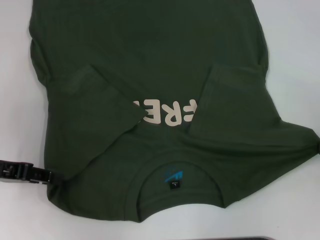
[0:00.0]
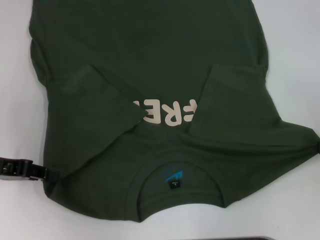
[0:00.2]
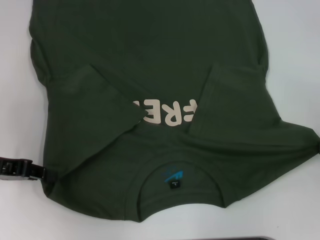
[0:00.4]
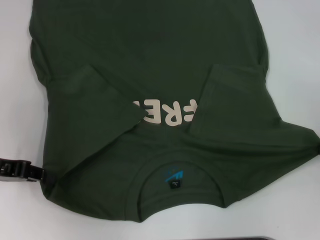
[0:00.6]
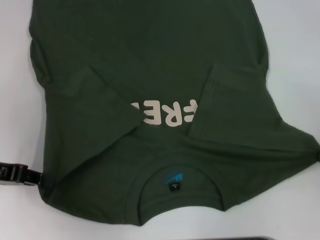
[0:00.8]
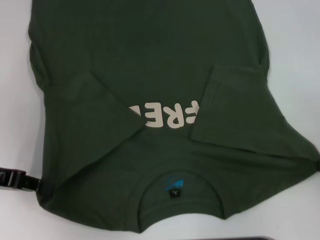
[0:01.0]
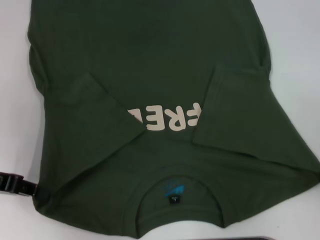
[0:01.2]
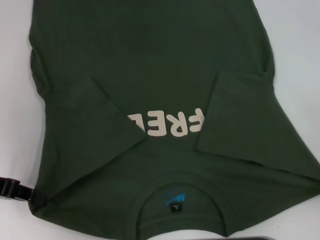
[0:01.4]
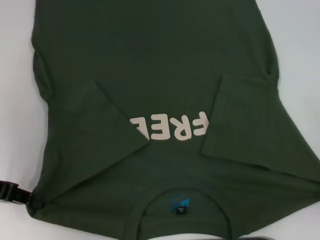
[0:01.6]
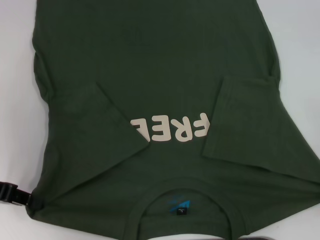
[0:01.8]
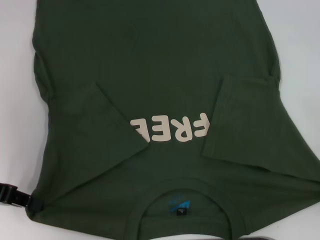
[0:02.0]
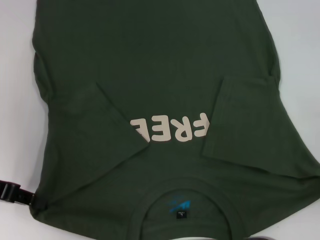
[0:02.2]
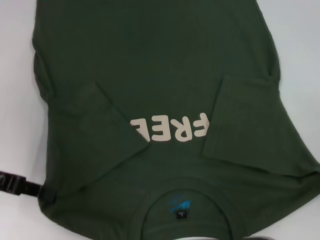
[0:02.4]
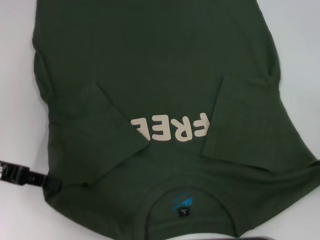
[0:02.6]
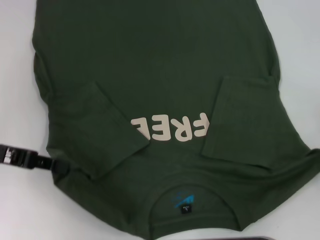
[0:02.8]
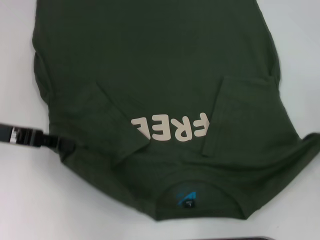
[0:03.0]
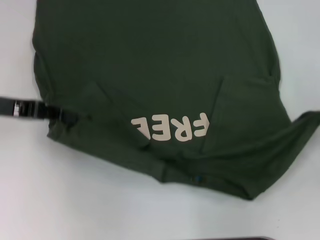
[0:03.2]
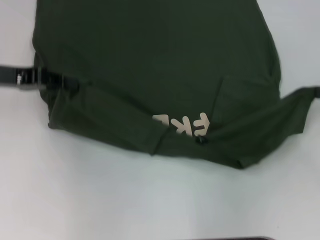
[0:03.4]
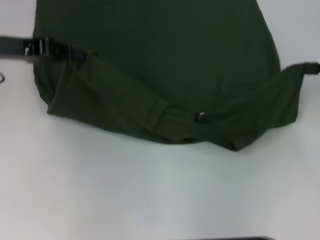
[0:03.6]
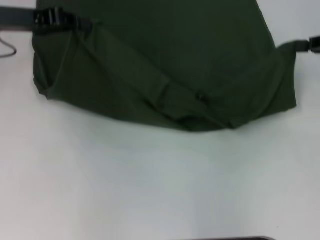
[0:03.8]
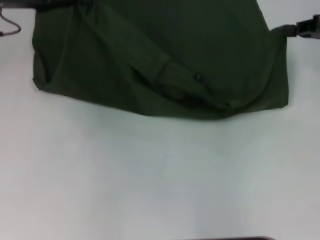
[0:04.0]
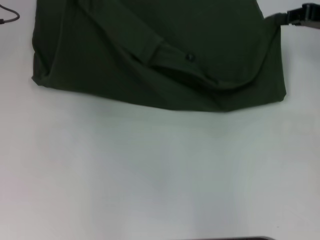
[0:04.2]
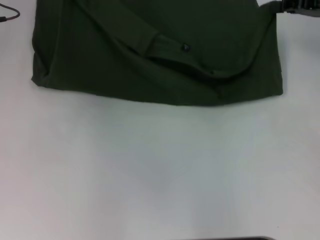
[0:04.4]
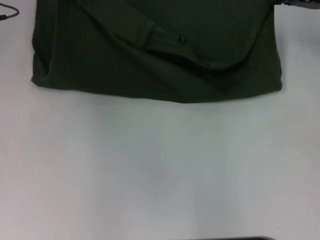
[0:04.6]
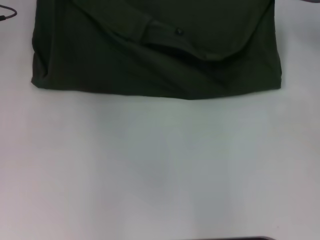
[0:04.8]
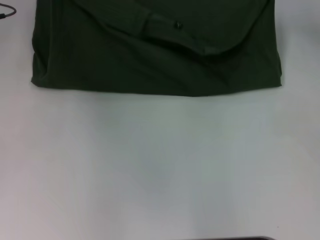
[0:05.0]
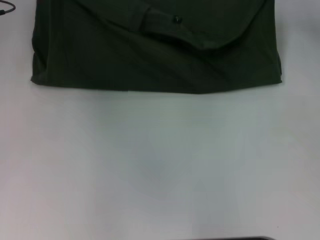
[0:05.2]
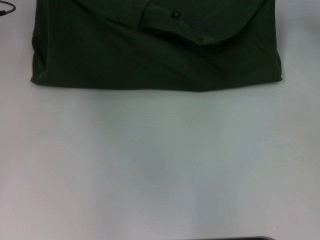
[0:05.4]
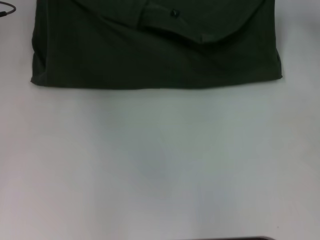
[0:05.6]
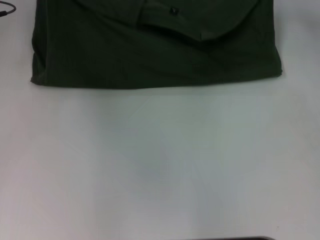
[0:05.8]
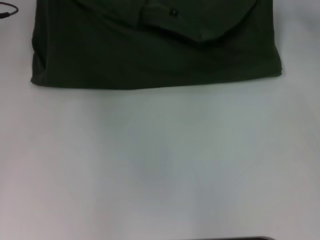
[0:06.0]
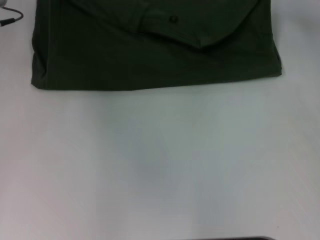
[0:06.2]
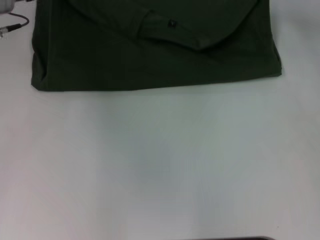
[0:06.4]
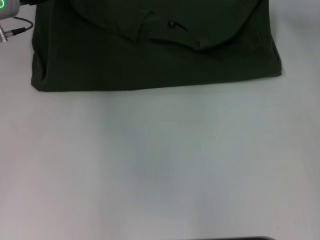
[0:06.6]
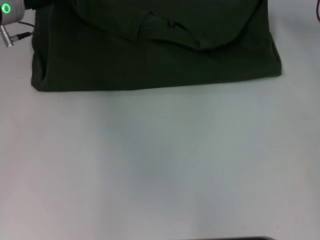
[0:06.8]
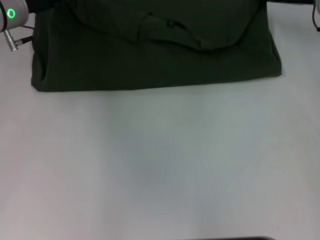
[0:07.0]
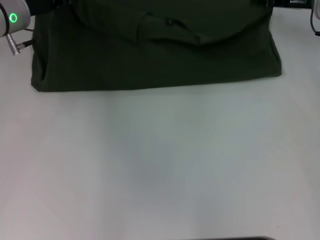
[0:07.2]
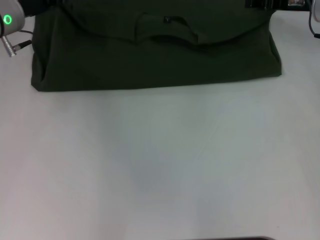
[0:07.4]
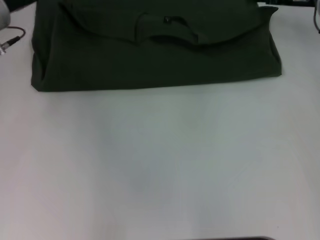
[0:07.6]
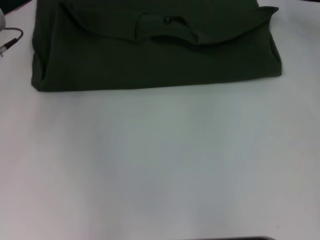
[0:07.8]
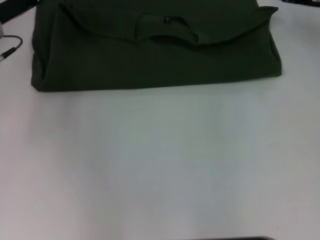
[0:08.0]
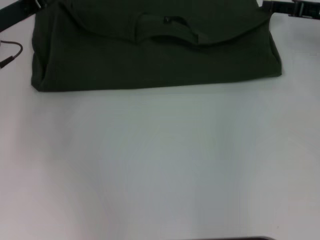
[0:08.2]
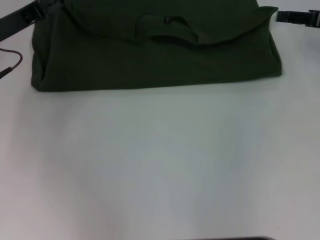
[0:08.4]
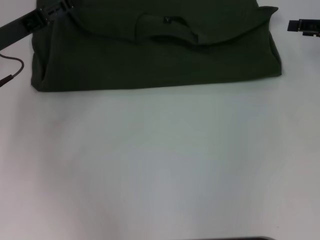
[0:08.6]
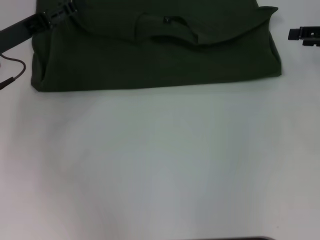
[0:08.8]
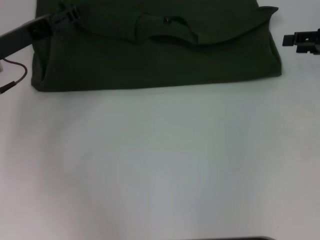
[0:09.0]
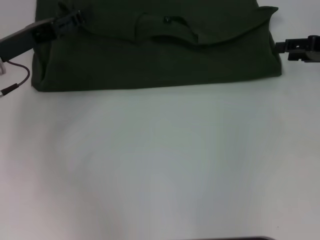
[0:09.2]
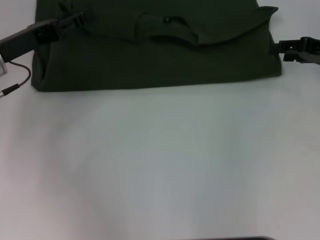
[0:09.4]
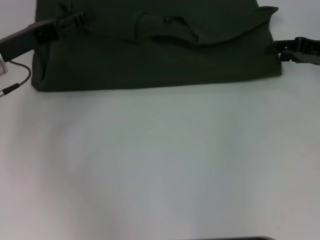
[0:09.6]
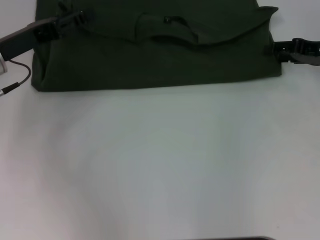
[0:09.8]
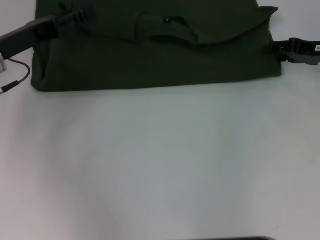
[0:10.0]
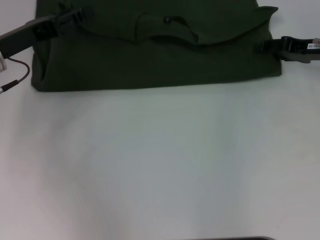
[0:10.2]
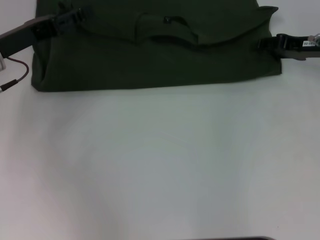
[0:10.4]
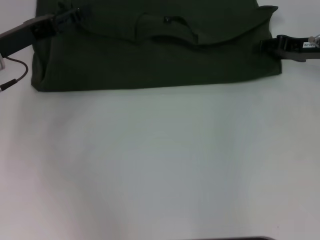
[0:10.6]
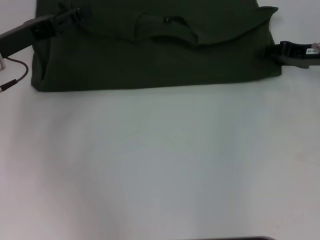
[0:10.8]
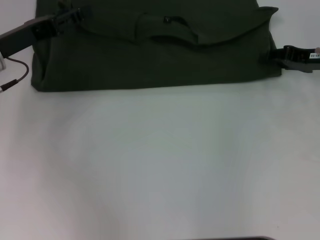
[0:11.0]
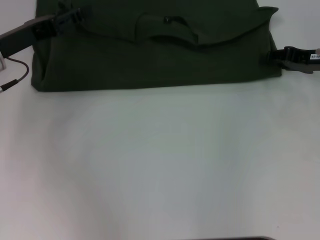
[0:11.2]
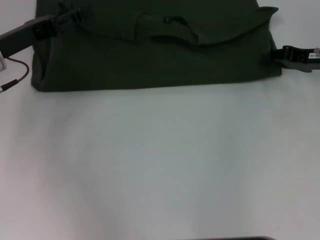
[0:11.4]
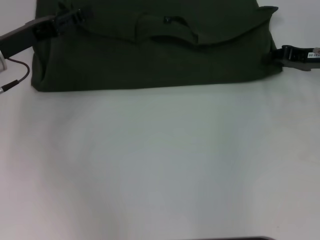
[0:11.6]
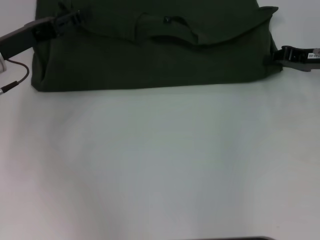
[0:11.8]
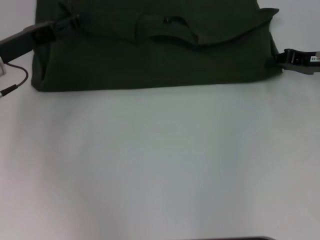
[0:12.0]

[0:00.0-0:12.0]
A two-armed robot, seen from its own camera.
Step, 0:00.0 to 0:07.0: Fold the clothes with your left hand.
Step, 0:00.0 to 0:07.0: Fold the clothes with your right hand.
0:00.0 to 0:01.6: The right gripper heads backward, covering some 5 cm. The left gripper closes up.
0:01.6 to 0:03.0: The right gripper is displaced forward by some 5 cm. The left gripper shifts by roughly 5 cm.
0:03.0 to 0:04.4: The right gripper shifts some 20 cm forward and to the left; the left gripper moves forward and upward, roughly 15 cm.
0:04.4 to 0:06.0: There are only small adjustments of the grippers.
0:06.0 to 0:07.6: The left gripper ends up approximately 5 cm from where it was, and opens its fingers. The right gripper opens.
0:07.6 to 0:09.0: The left gripper moves backward, about 10 cm, and opens up. Meanwhile the right gripper heads backward and to the right, covering some 10 cm.
0:09.0 to 0:10.4: The right gripper travels to the left by roughly 5 cm.
0:10.4 to 0:12.0: The right gripper closes.

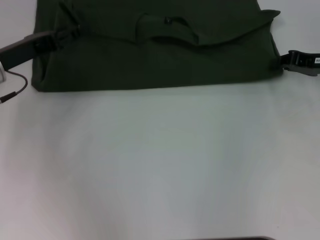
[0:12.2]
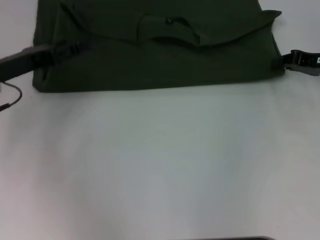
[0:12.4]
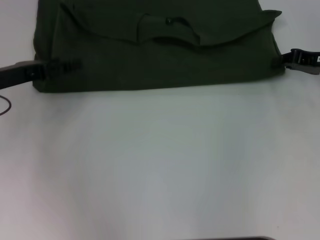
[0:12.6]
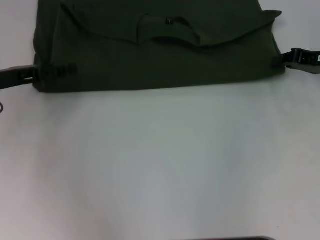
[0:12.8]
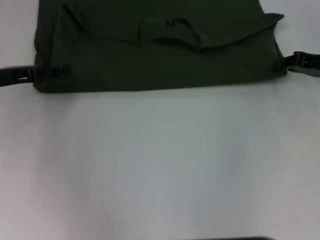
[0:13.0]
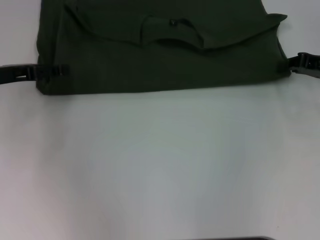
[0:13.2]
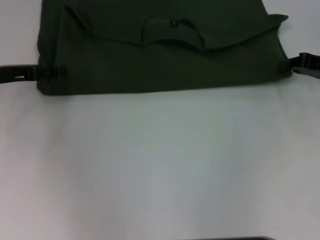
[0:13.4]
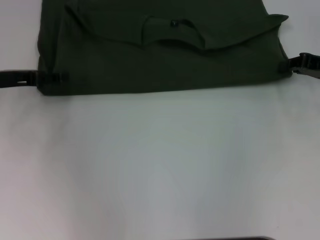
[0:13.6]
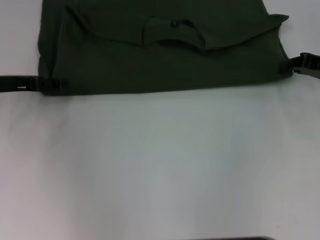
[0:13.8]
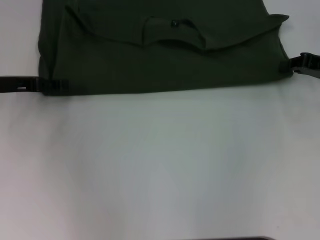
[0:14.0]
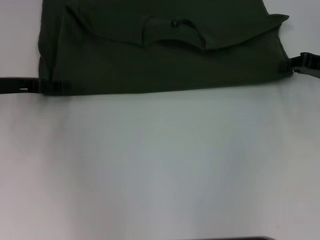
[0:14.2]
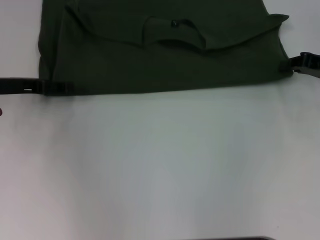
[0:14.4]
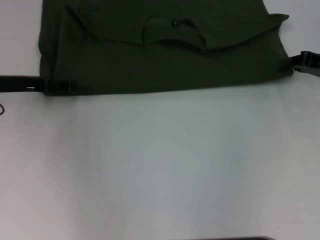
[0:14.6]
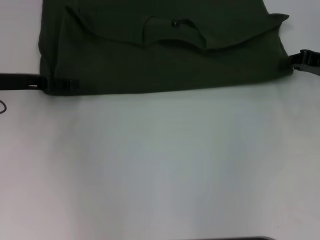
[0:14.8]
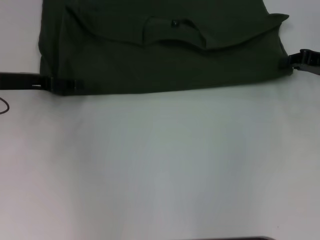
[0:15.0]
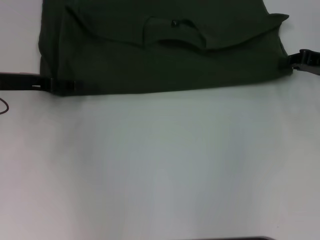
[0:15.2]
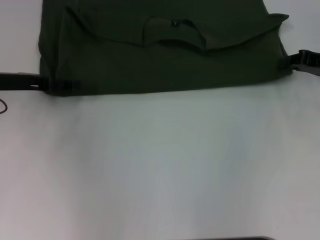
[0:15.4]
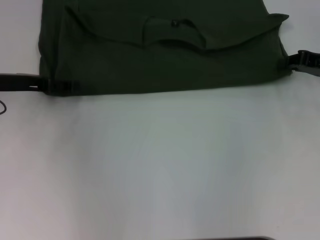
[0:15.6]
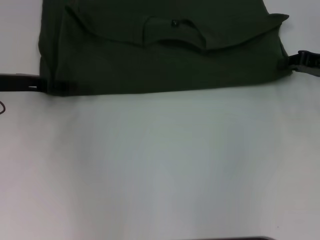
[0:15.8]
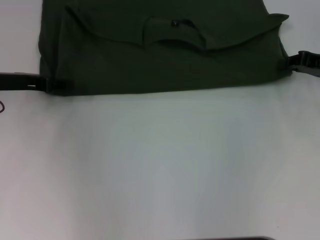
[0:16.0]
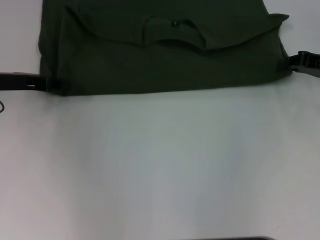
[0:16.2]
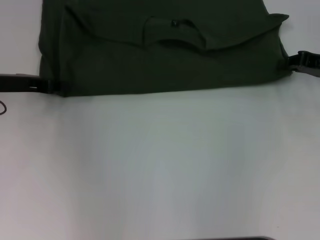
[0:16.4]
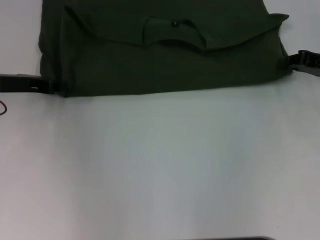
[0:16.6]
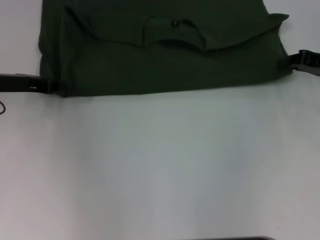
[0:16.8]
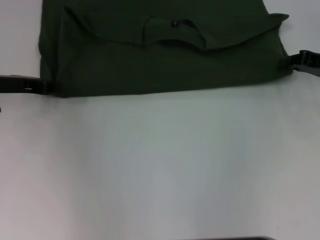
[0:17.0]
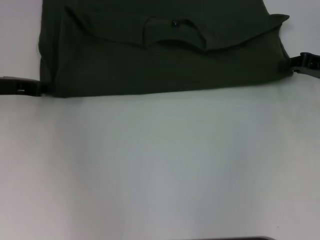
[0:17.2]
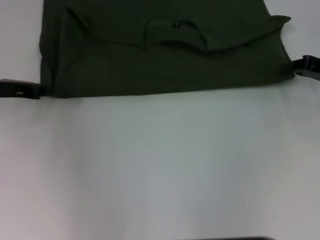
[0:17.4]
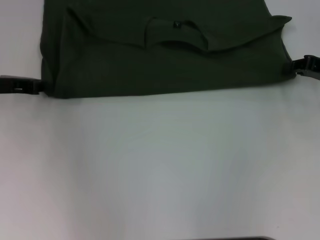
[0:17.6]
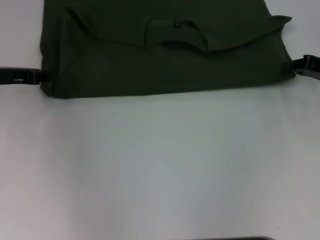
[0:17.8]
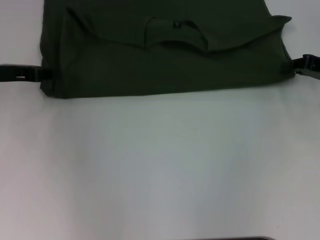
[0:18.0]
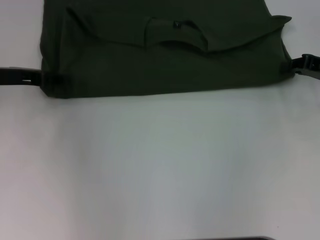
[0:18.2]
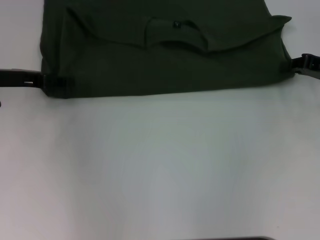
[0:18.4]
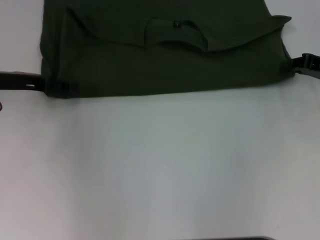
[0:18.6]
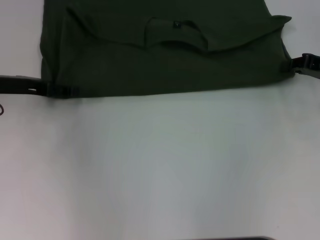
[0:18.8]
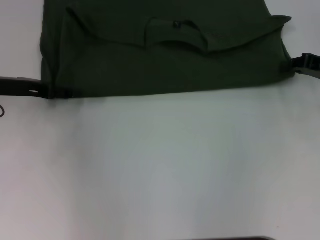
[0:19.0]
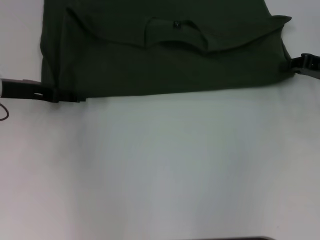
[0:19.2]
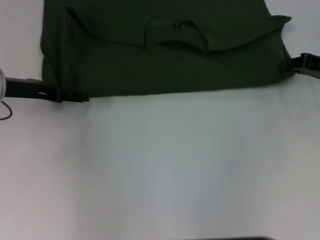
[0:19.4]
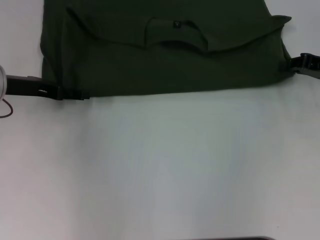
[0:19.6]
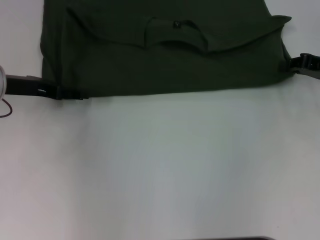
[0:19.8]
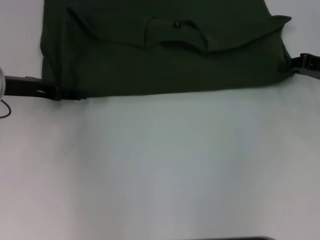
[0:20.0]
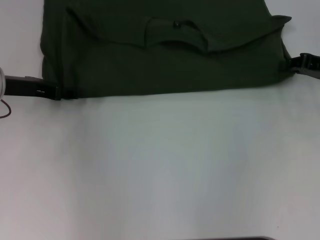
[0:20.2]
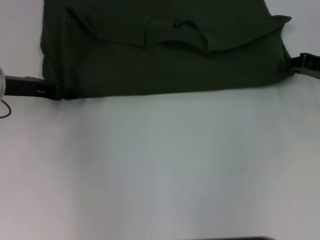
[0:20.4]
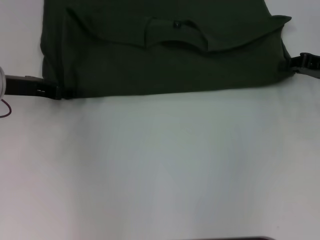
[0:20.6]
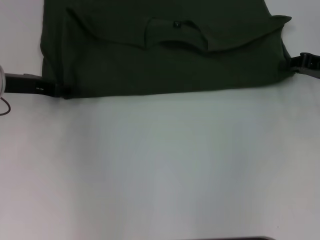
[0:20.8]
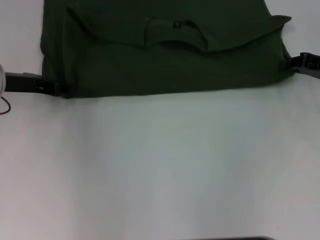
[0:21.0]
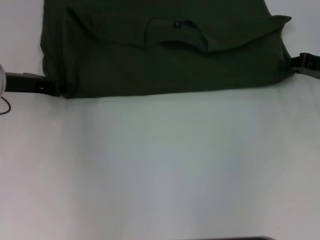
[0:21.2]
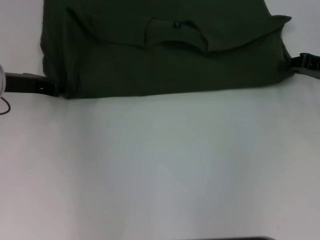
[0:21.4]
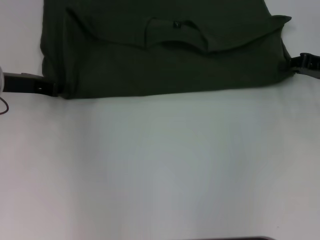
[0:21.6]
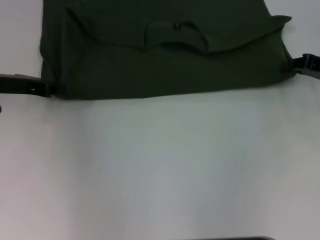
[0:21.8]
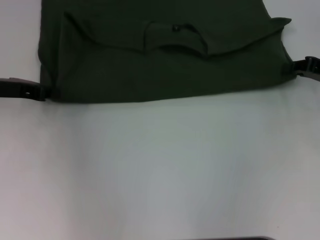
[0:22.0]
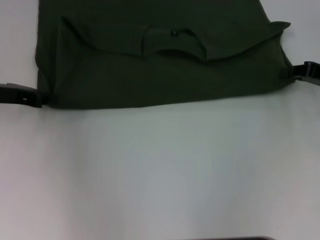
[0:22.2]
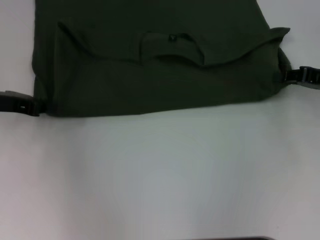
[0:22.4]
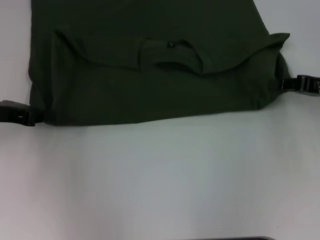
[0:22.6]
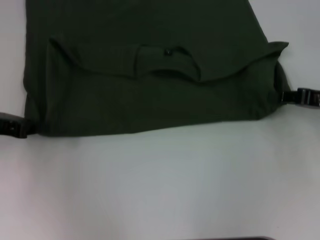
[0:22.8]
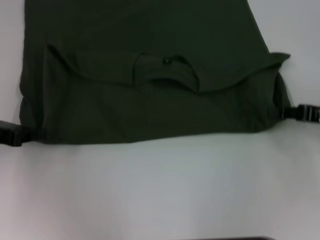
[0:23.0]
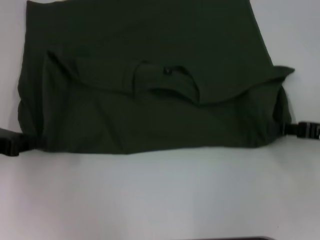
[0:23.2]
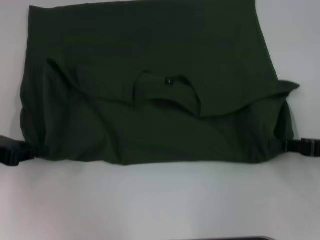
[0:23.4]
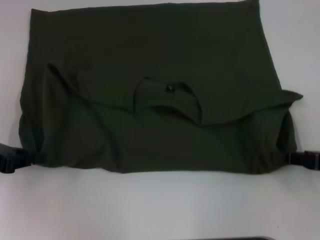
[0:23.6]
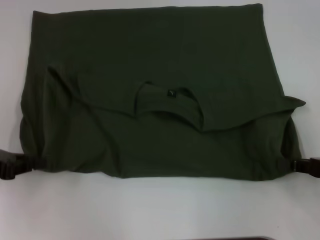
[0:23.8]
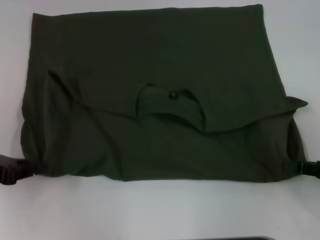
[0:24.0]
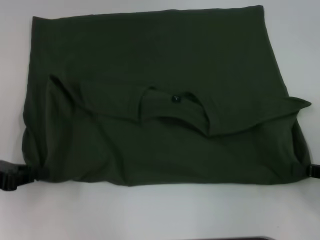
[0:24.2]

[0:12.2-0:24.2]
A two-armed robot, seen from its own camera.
0:13.8 to 0:15.2: The grippers make only small movements.
0:15.2 to 0:16.6: The left gripper closes up.
0:16.6 to 0:18.2: The grippers move only a little.
0:18.2 to 0:19.8: The left gripper opens.
0:19.8 to 0:21.2: The left gripper closes.
0:21.2 to 0:22.6: The left gripper shifts by approximately 5 cm.
0:22.6 to 0:24.2: The two grippers go some 10 cm backward.
